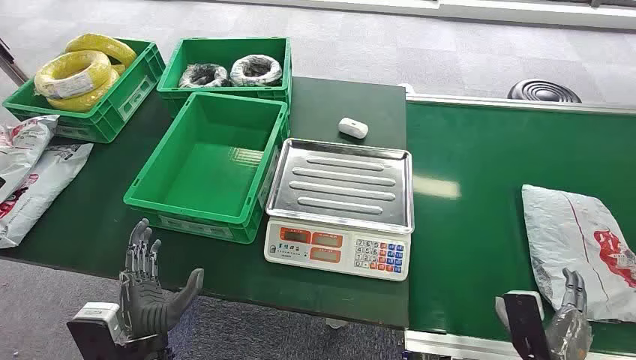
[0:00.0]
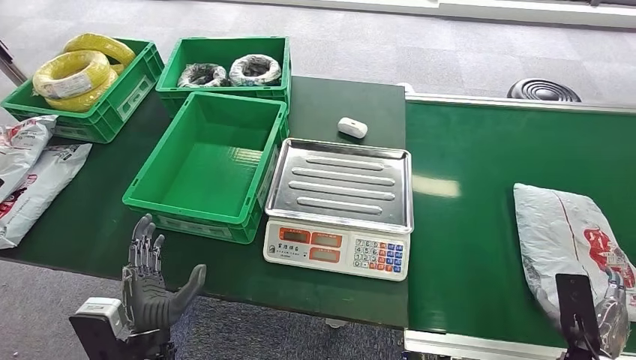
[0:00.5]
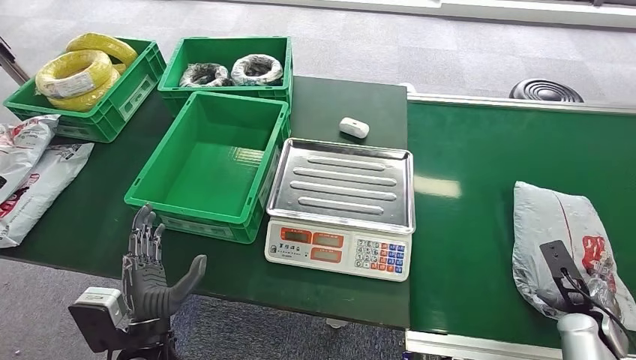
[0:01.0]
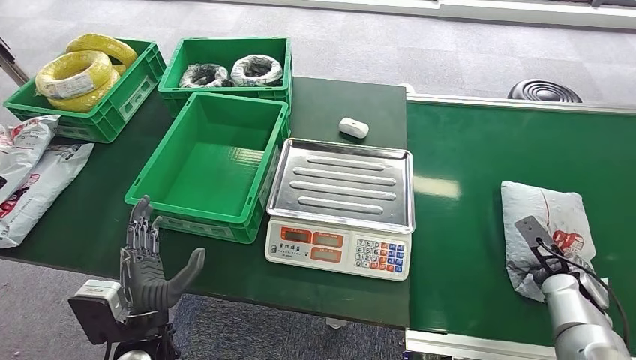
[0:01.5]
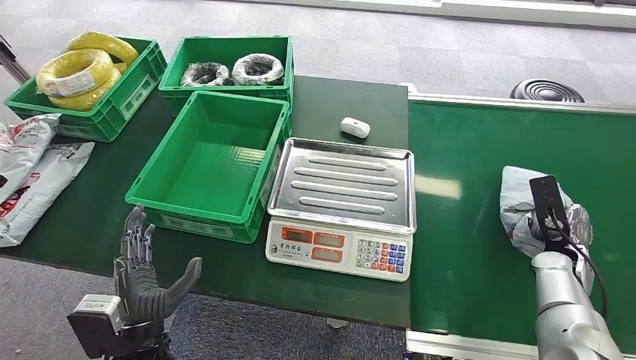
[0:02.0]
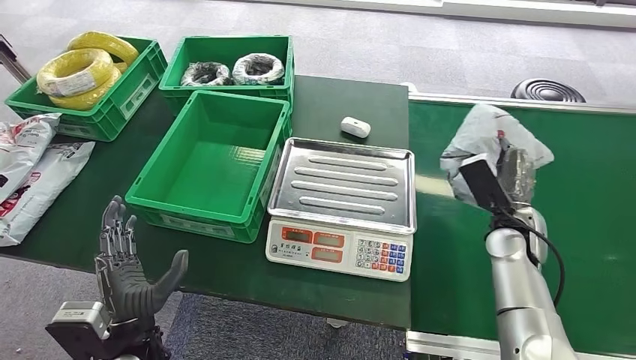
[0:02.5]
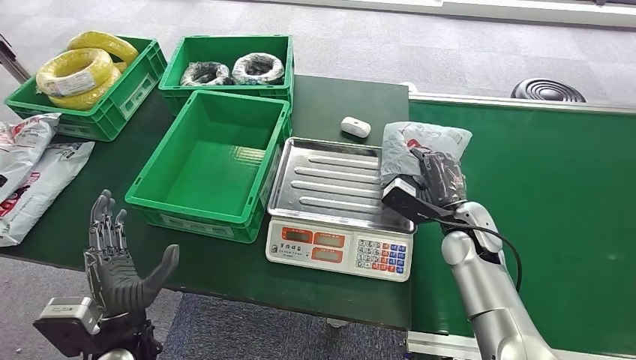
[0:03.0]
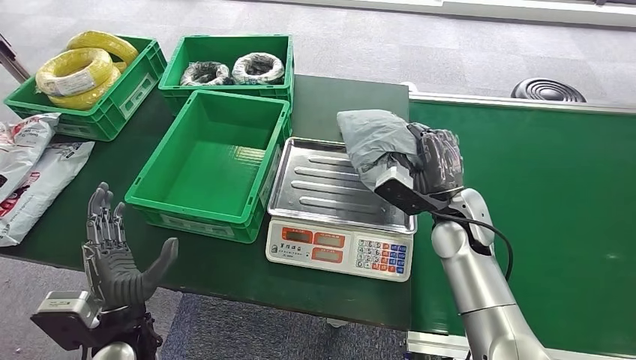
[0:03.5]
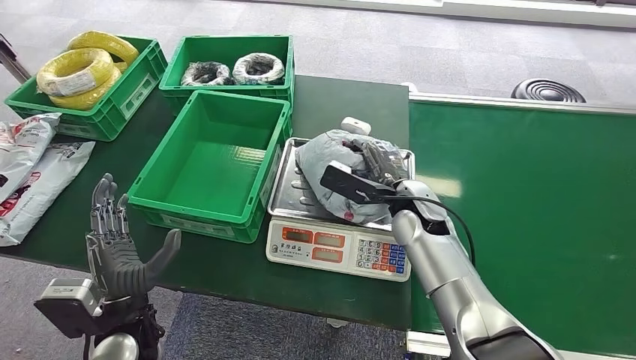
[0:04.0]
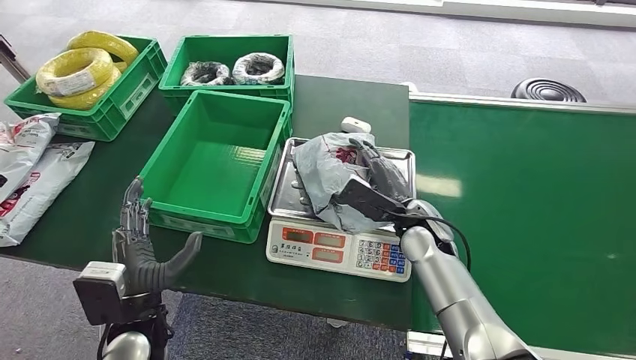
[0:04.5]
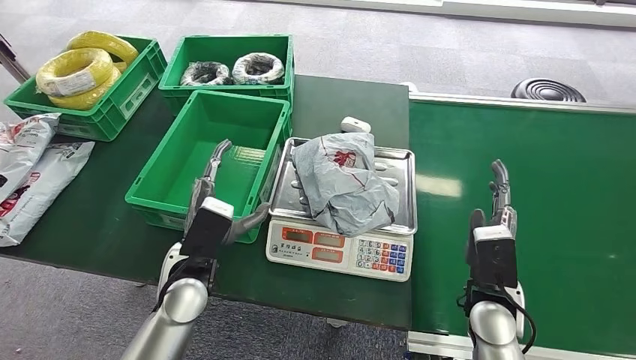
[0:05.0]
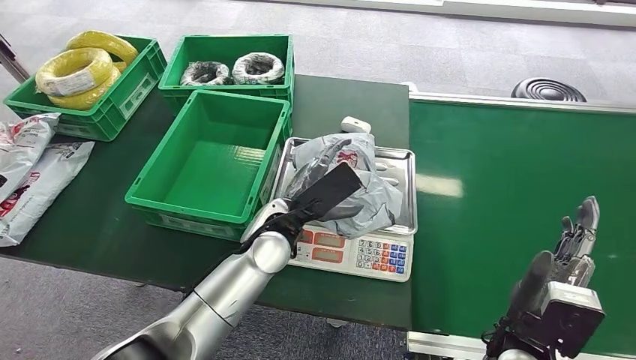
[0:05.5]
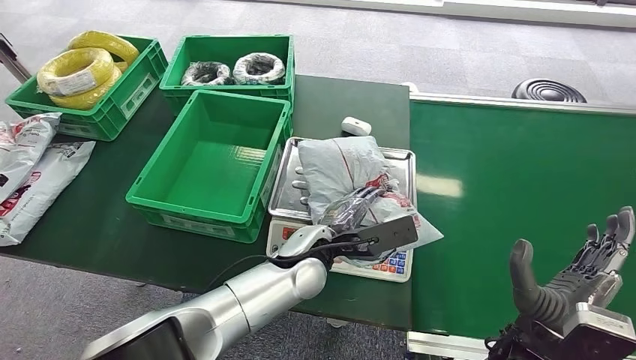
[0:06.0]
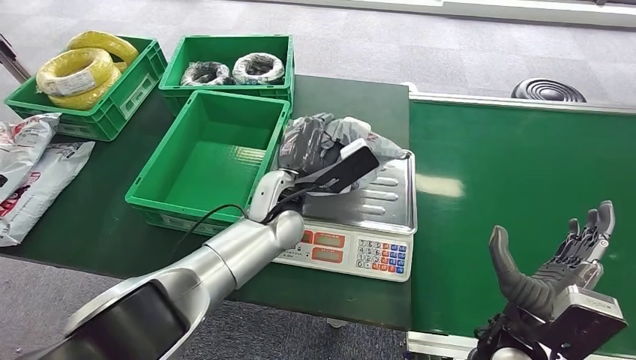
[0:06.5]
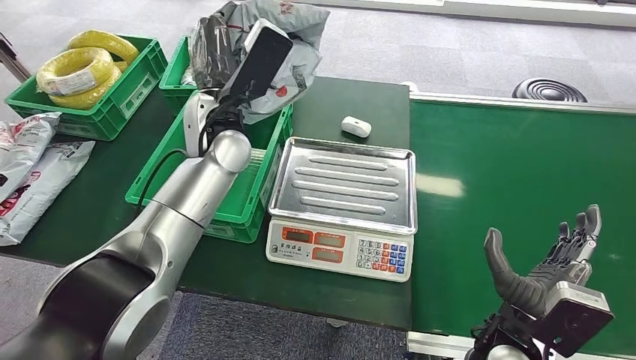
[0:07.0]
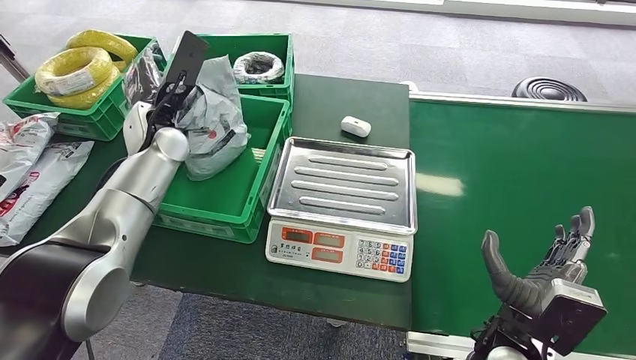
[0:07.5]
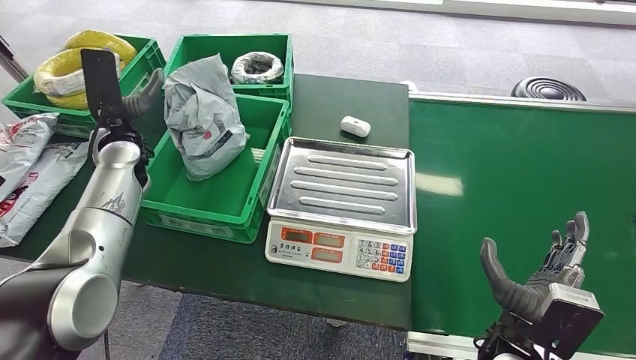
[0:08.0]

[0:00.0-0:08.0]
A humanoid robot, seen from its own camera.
Step, 0:00.0 to 0:02.5: Pick up the package from the conveyor belt.
Step, 0:03.0 to 0:04.5: Place the package onto the inbound machine.
Step, 0:05.5 to 0:06.5: Pick up the package from the inbound machine.
Step, 0:07.0 to 0:08.0: Place the package into the parcel locker.
